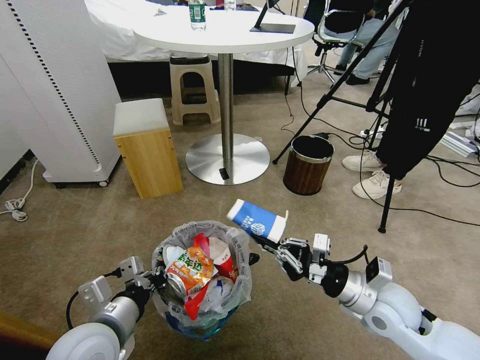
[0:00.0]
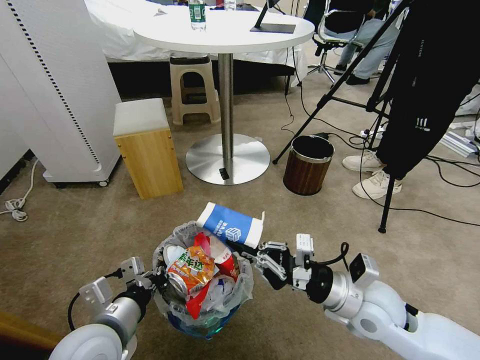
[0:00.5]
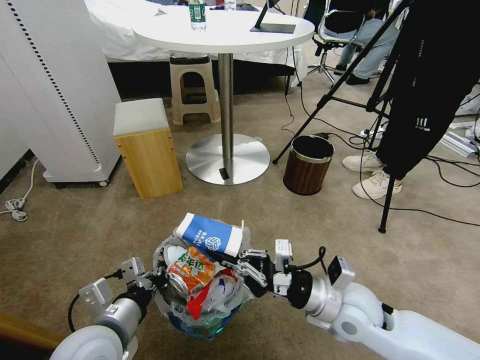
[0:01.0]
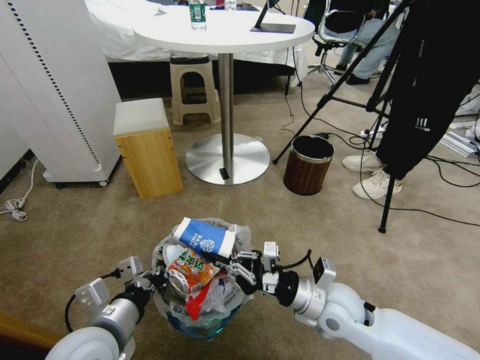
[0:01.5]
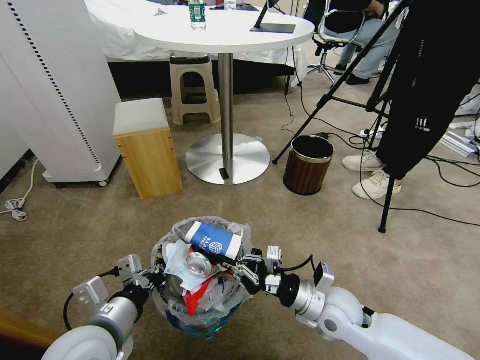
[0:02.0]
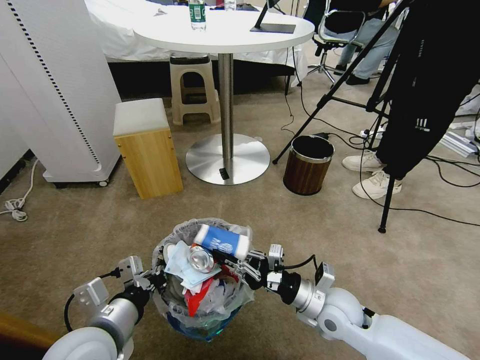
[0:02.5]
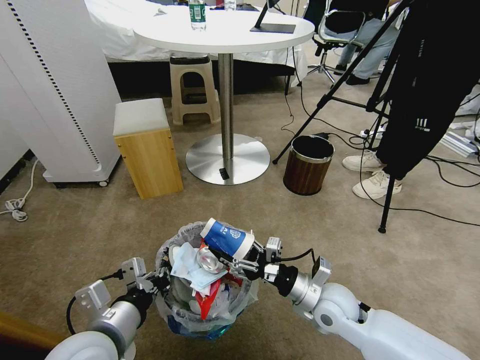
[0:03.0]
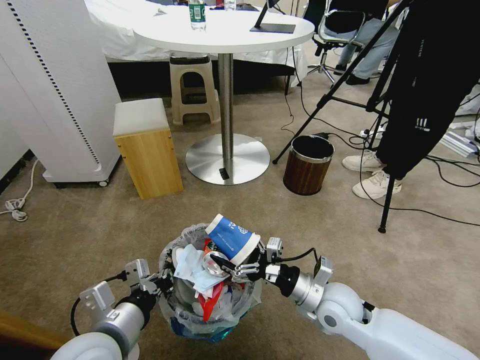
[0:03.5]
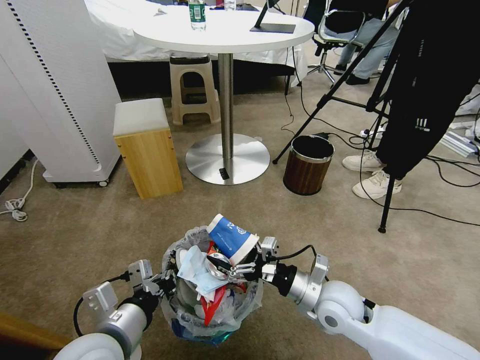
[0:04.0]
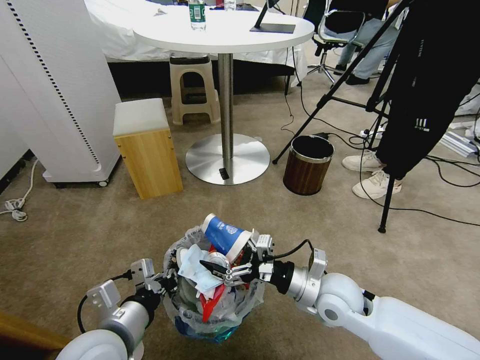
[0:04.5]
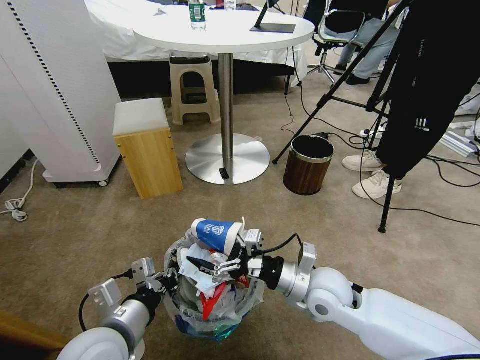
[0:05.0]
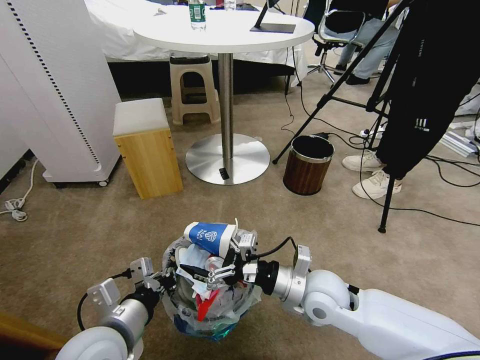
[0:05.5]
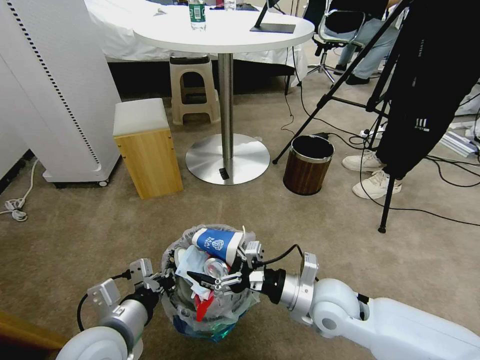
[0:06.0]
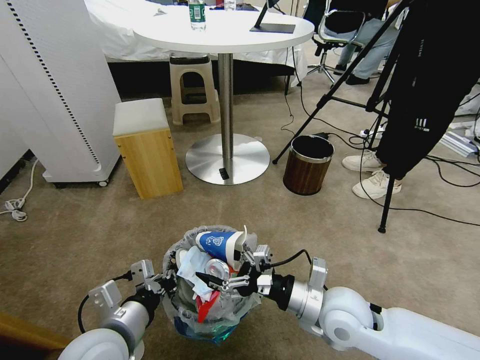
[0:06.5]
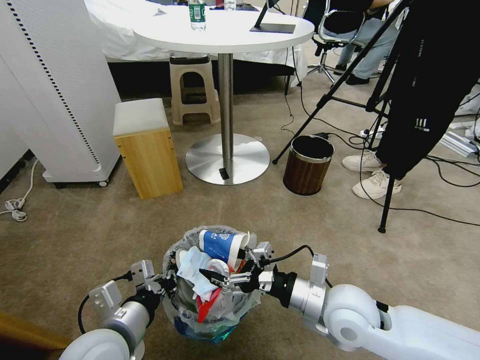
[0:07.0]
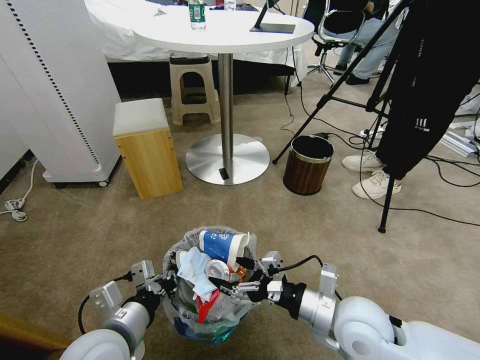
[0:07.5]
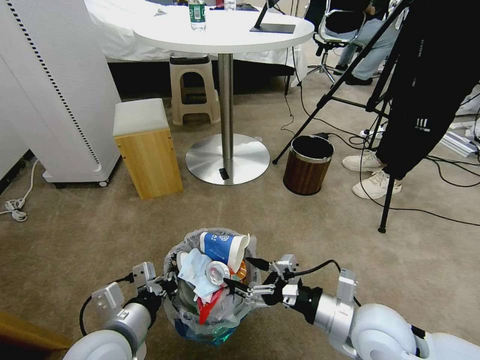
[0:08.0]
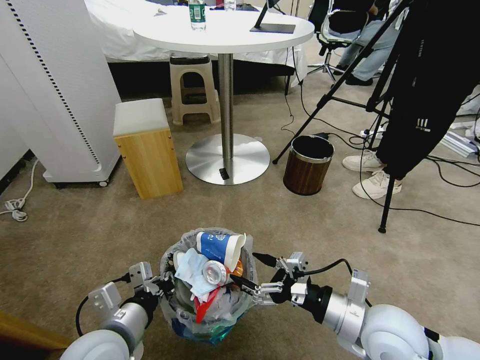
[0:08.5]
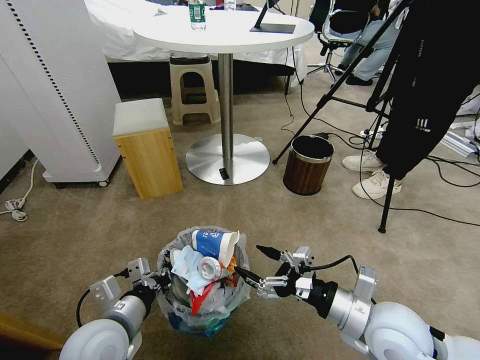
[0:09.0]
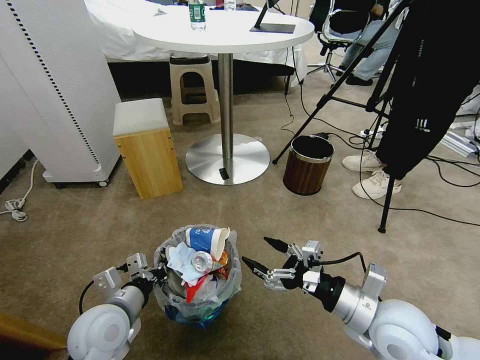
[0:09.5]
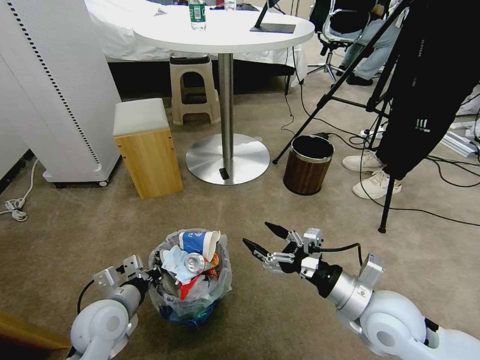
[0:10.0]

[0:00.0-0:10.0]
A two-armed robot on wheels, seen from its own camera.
Task of the whole recording: Pick up the trash bin and place the garbage on the floor into it.
0:00.0 to 0:02.0: The right gripper shifts approximately 10 cm to the left.
0:02.0 to 0:04.0: The right gripper opens.
0:04.0 to 0:06.0: There are only small adjustments of the grippers.
0:06.0 to 0:08.0: The right gripper travels backward and to the right by roughly 10 cm.
0:08.0 to 0:10.0: The left gripper heads forward, downward and to the left, covering approximately 10 cm.

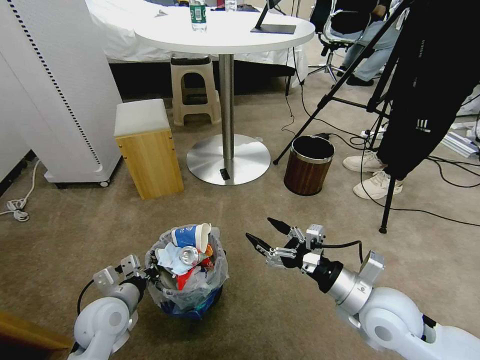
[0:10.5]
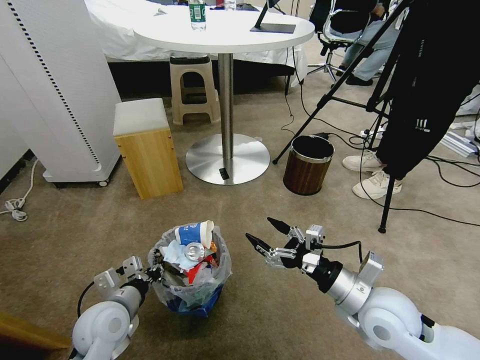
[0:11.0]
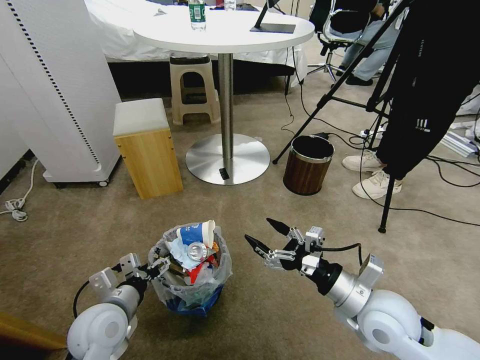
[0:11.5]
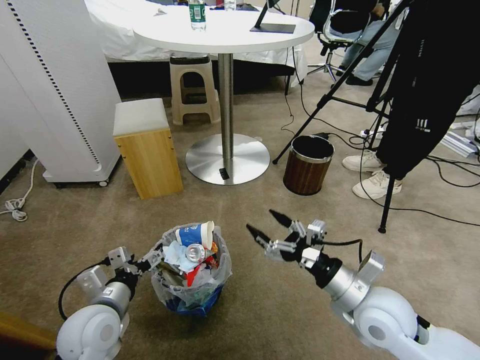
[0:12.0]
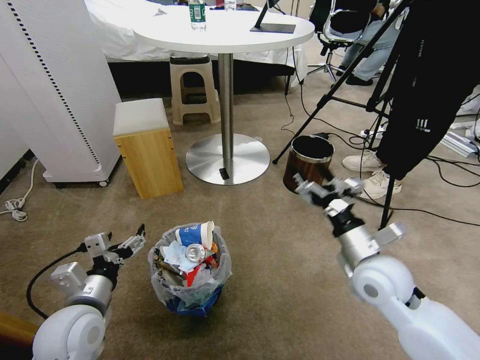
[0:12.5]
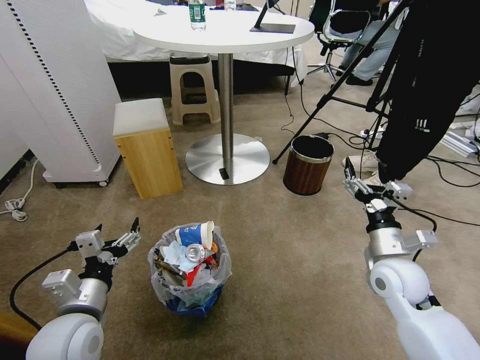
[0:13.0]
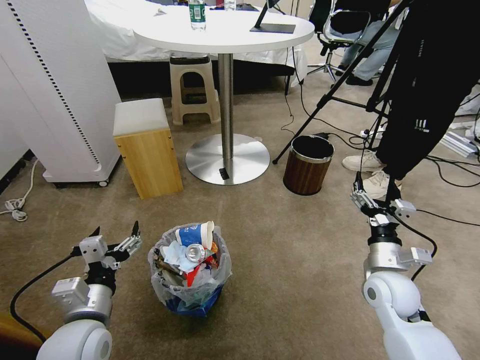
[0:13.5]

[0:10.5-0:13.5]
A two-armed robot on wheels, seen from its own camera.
Task of the whole recording: Pick up the trash bin and place the garbage on the floor into it.
0:10.5 to 0:12.0: The left gripper ends up approximately 5 cm from where it was, and opens.
0:12.0 to 0:13.5: The right gripper travels to the right, forward and downward by roughly 10 cm.
